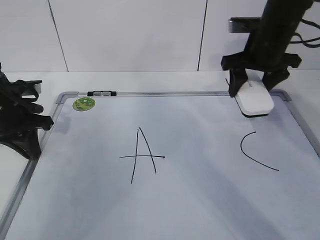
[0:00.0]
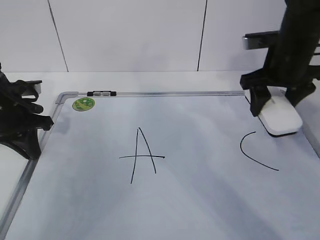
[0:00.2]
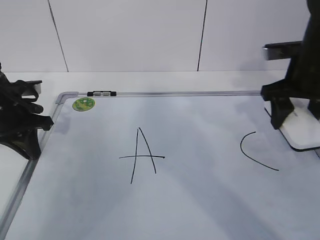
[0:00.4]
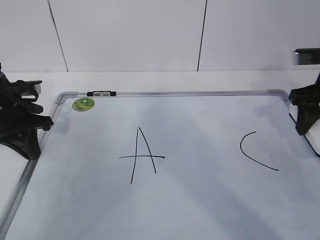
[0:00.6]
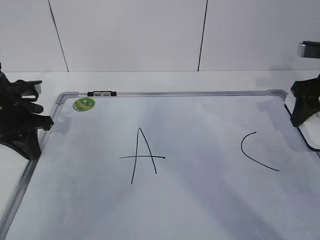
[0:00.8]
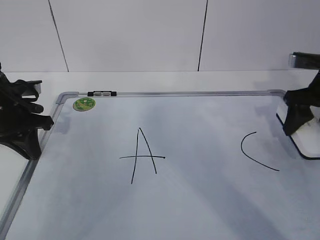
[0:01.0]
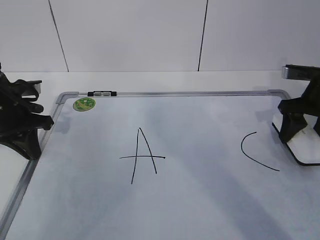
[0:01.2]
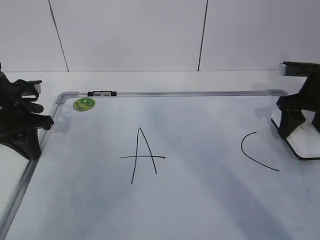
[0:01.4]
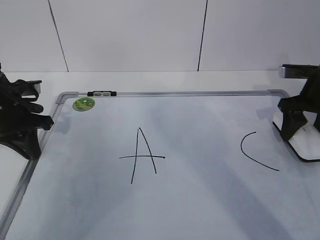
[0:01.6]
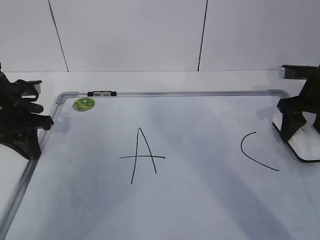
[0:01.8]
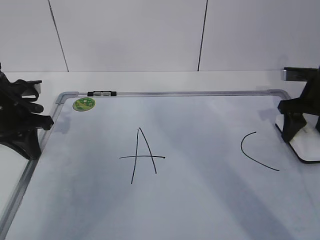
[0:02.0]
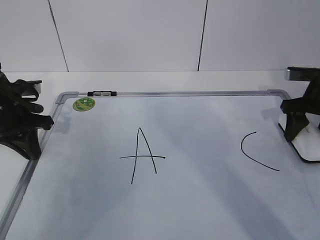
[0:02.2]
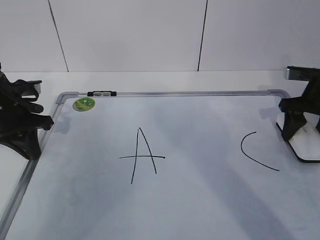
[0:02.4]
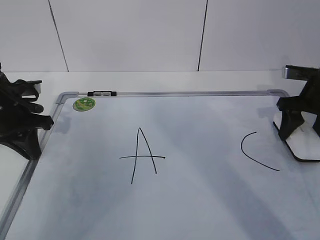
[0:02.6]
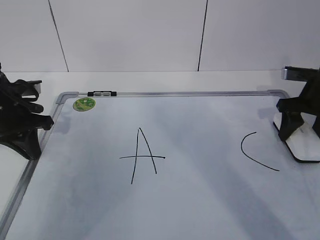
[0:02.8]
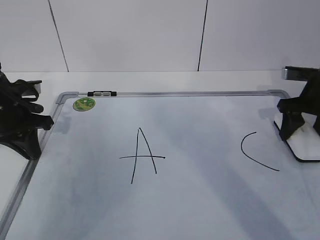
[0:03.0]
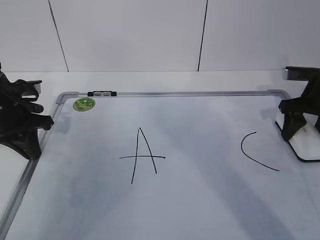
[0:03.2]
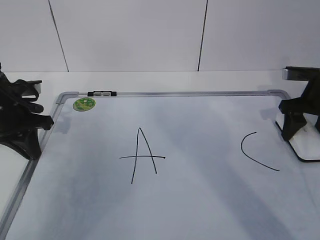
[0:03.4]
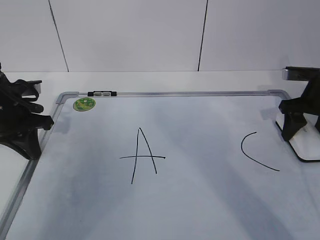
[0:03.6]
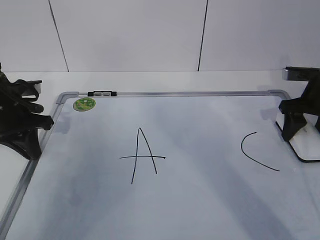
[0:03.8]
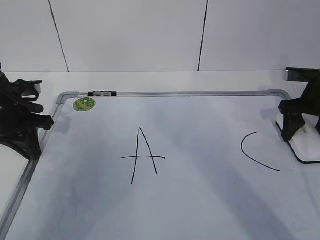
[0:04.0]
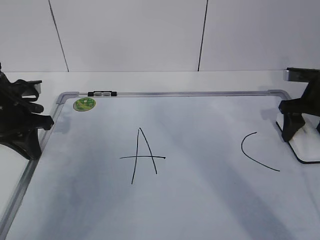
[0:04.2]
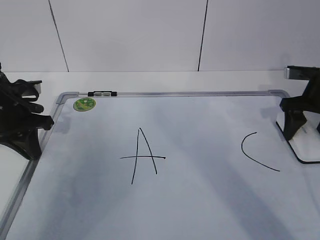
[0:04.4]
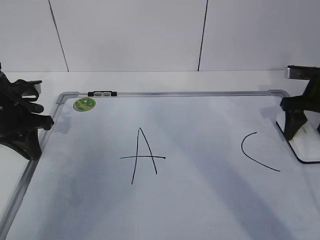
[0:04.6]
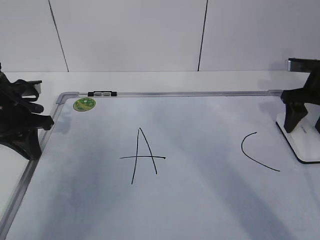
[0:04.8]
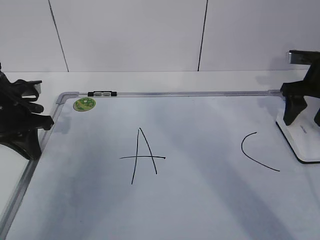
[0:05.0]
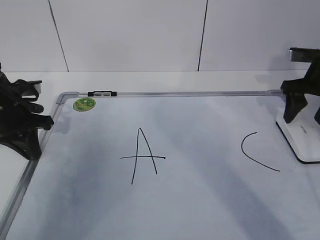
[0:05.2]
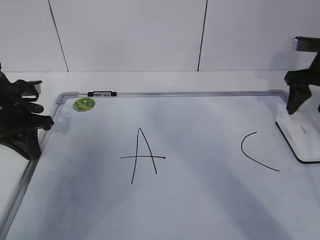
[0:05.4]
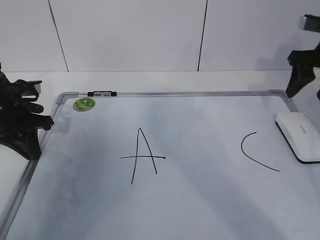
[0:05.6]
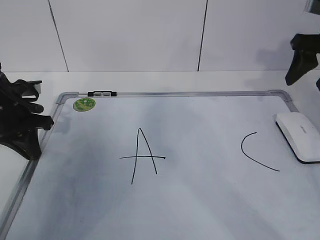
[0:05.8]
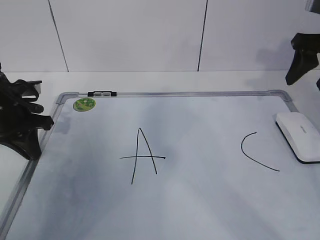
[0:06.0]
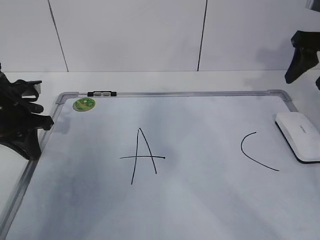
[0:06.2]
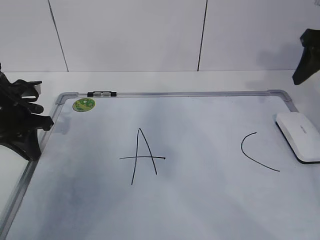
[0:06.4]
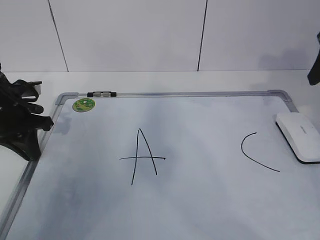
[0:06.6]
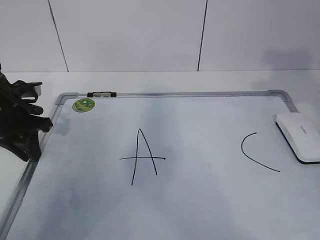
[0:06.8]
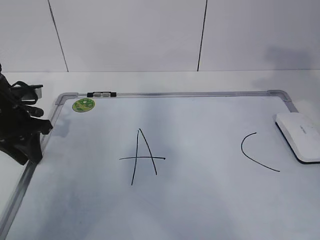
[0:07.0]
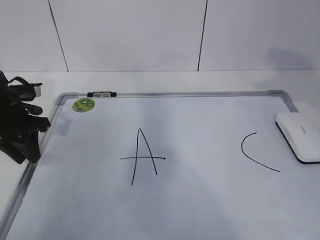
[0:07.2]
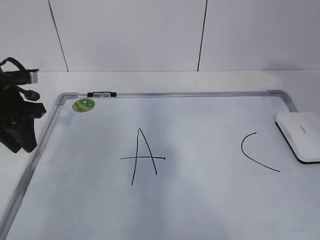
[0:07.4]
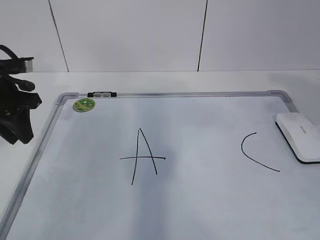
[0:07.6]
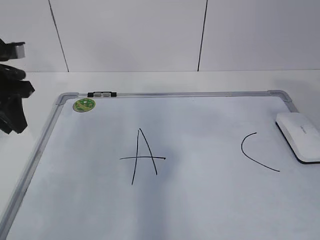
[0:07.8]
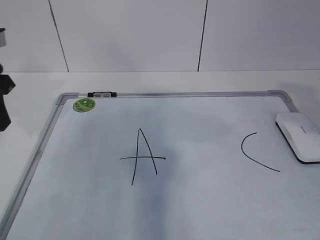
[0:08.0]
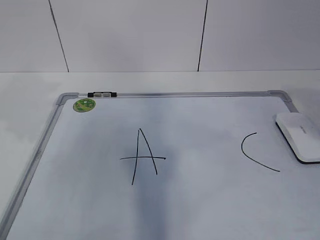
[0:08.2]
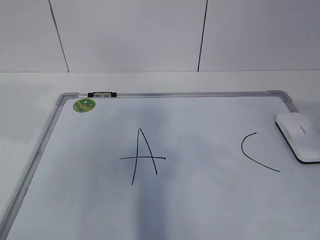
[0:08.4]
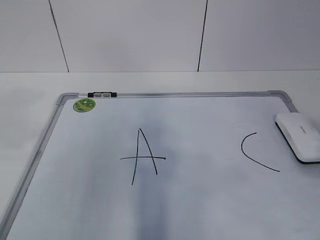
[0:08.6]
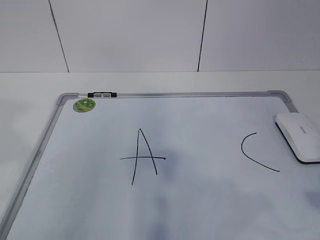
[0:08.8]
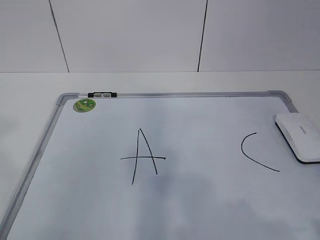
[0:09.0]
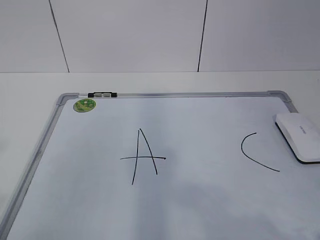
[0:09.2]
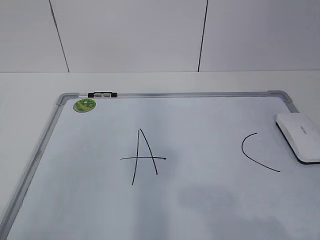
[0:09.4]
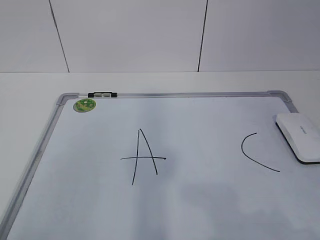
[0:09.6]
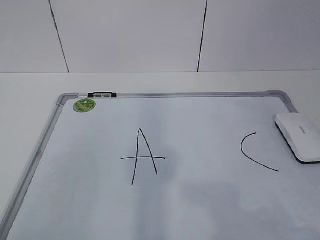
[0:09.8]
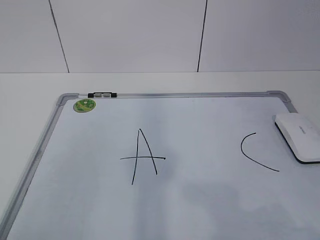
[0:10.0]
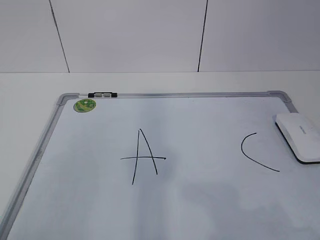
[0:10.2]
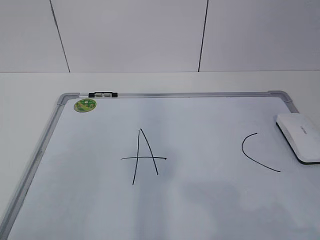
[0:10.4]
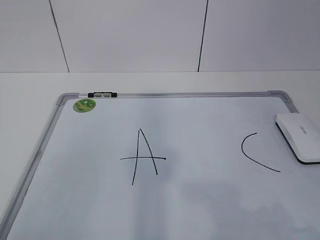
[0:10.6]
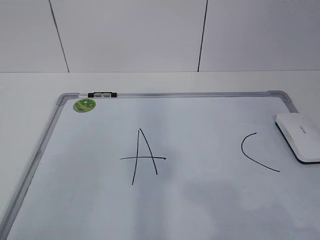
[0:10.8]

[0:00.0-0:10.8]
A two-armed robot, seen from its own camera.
Task of the whole recording: pick up the eraser on the blackboard and erase the letter "B".
0:00.0 to 0:01.6: The right gripper is displaced to the right and downward by some 10 cm.
0:01.6 to 0:03.0: The grippers stay close to where they were, moving slightly.
0:03.0 to 0:04.6: Both grippers stay about where they are.
0:04.6 to 0:06.2: The right gripper shifts approximately 10 cm upward.
0:06.2 to 0:07.8: The right gripper shifts about 20 cm backward. The left gripper goes approximately 10 cm upward, and opens.
0:07.8 to 0:09.2: The right gripper heads backward and downward, covering roughly 20 cm, and closes its fingers; the left gripper travels backward by roughly 30 cm.
